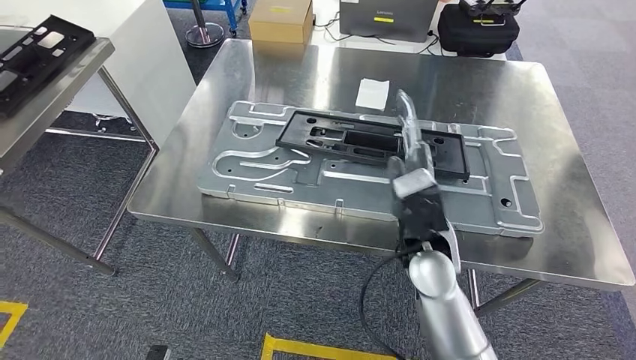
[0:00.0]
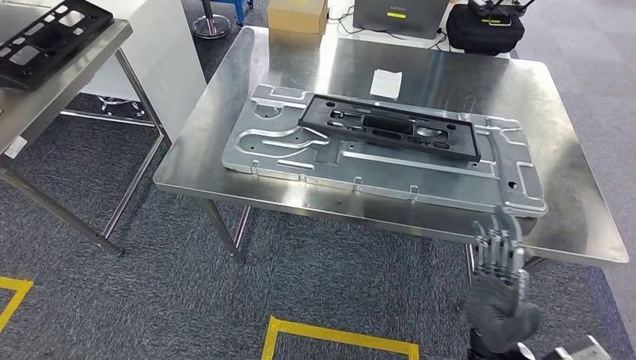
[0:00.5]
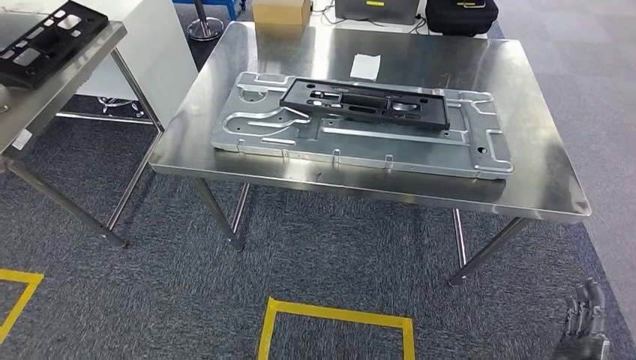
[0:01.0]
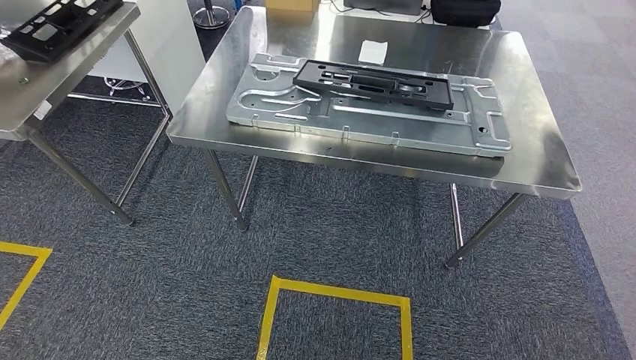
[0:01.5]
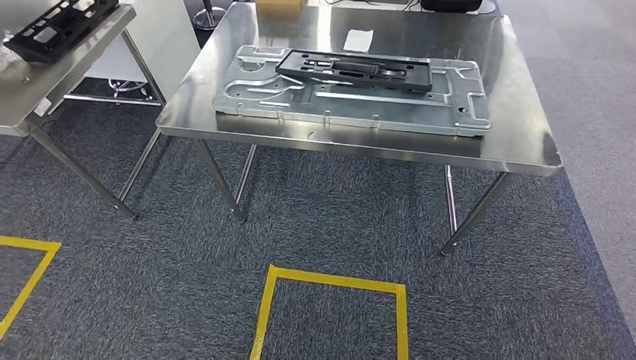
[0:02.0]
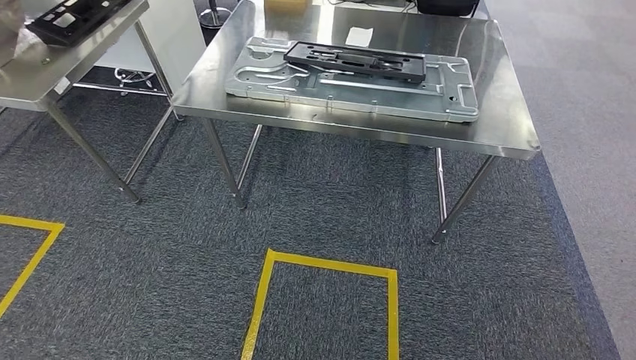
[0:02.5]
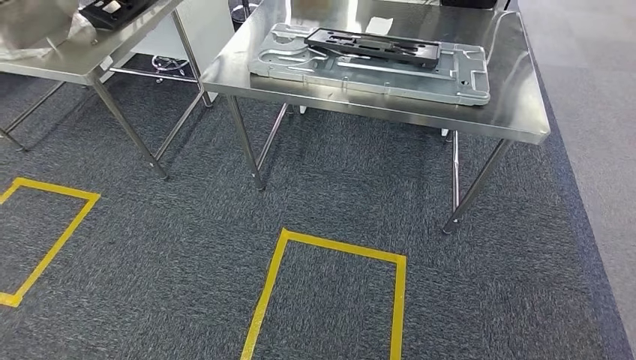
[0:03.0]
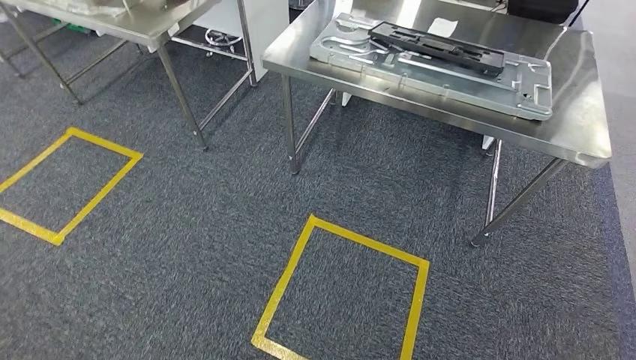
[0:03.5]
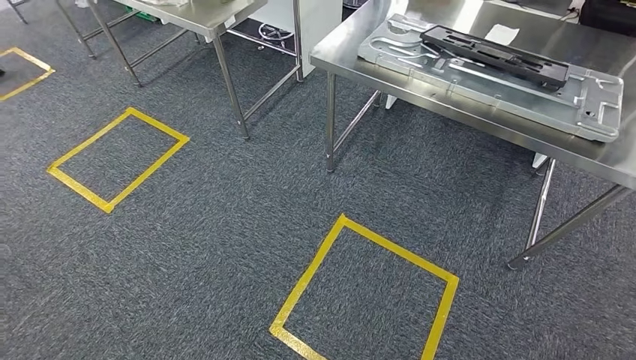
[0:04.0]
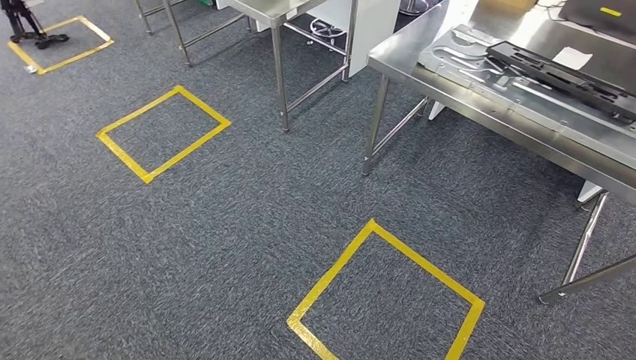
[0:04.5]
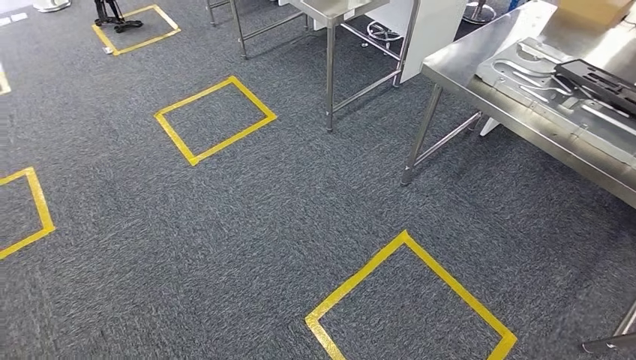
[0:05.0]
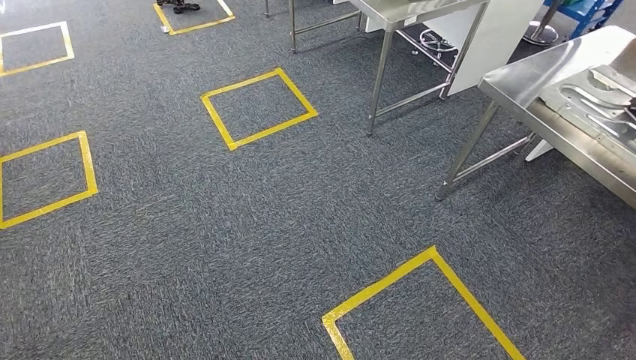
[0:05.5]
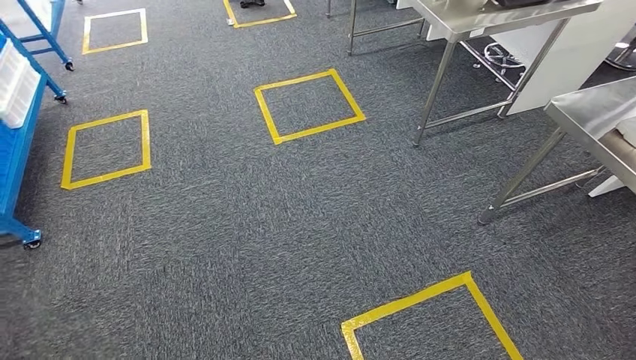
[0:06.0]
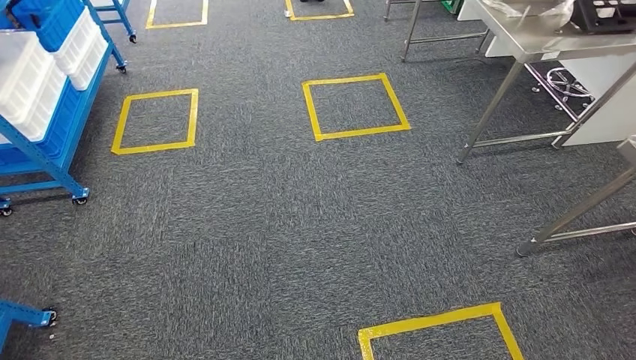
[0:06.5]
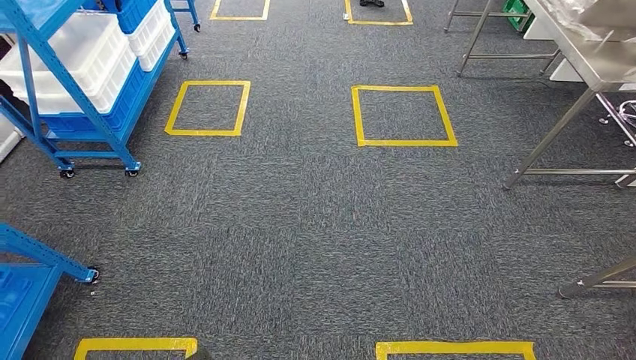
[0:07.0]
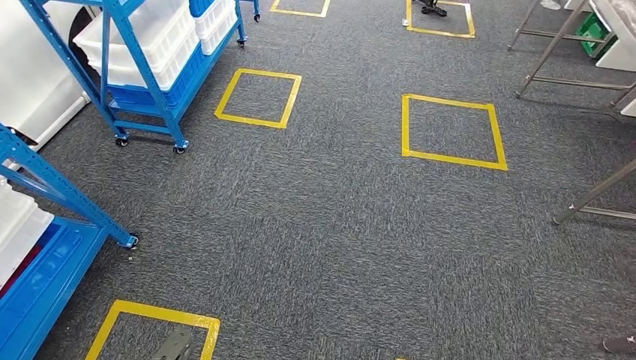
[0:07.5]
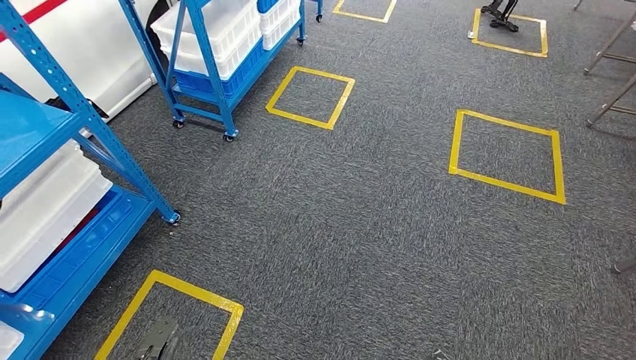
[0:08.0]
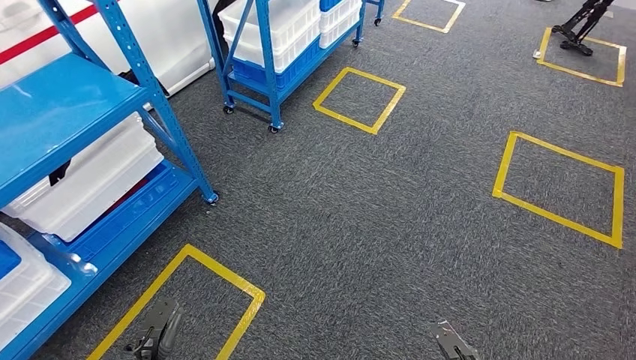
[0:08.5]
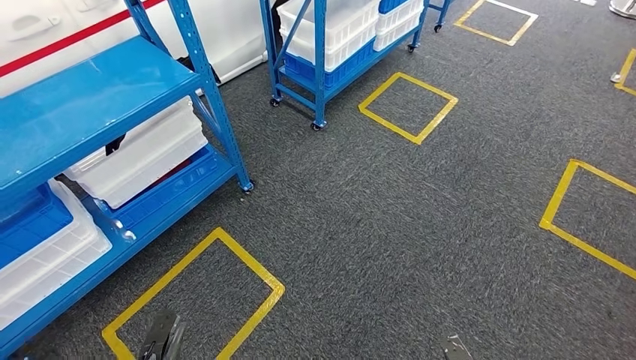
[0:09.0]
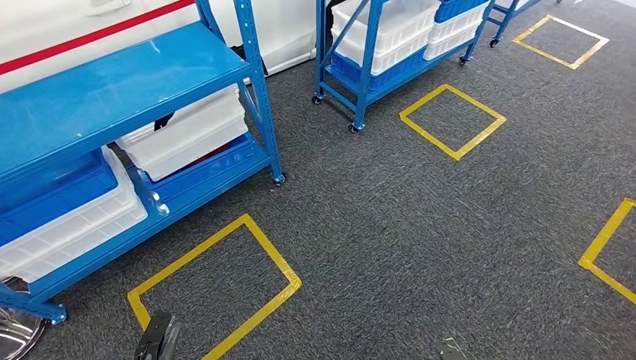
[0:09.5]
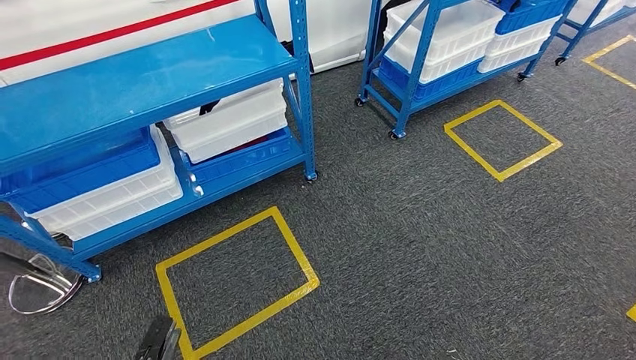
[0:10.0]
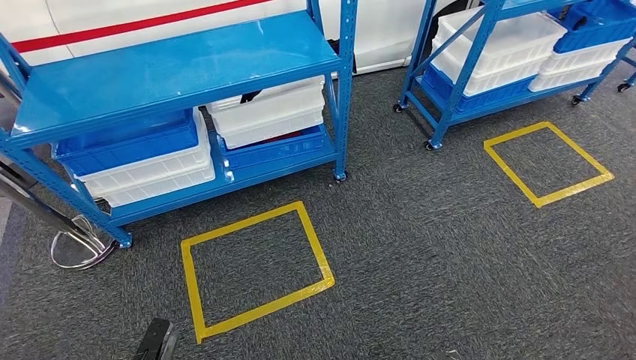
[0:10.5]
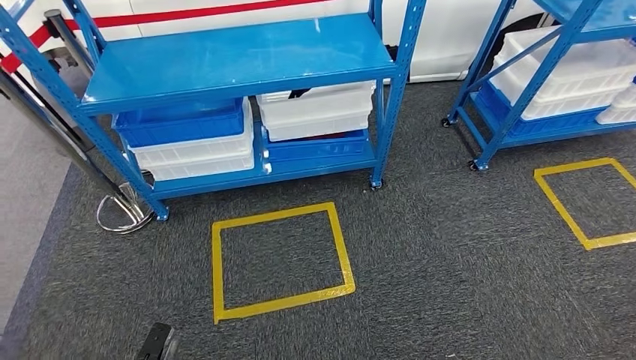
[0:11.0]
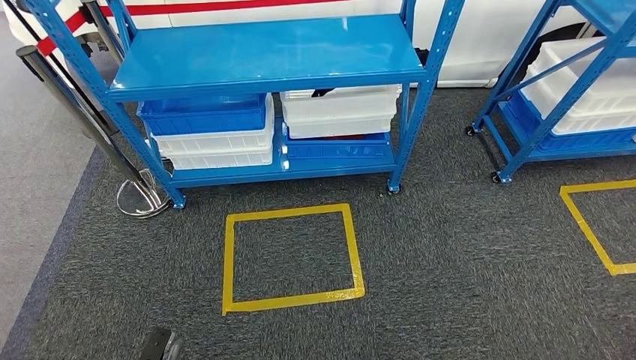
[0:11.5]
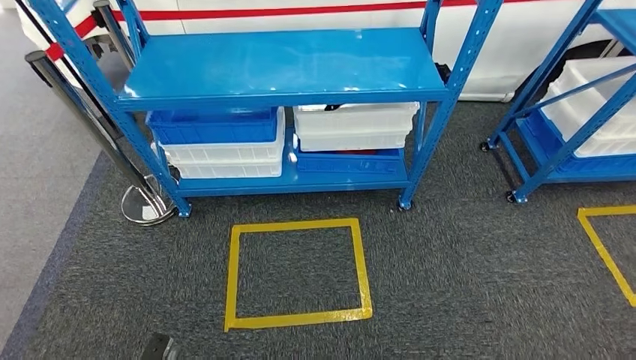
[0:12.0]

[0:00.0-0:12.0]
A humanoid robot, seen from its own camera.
Step, 0:00.0 to 0:02.5: Insert the large parts into the corresponding slots on the workbench.

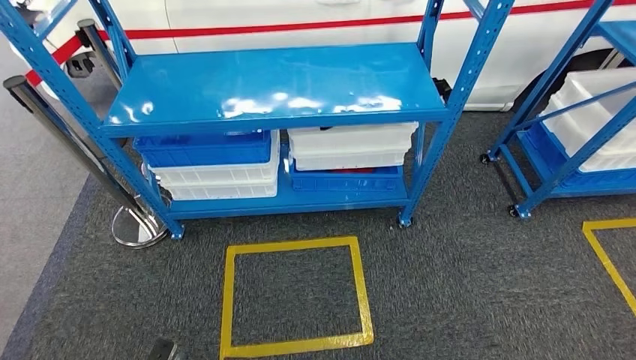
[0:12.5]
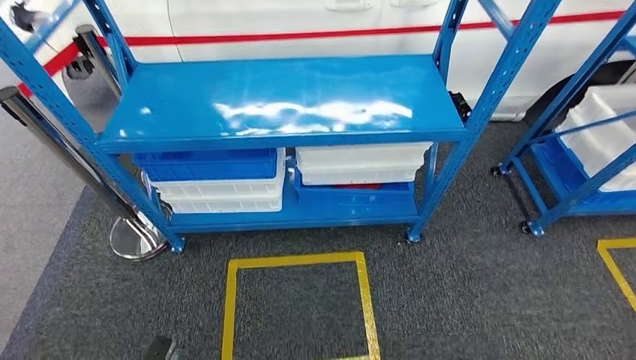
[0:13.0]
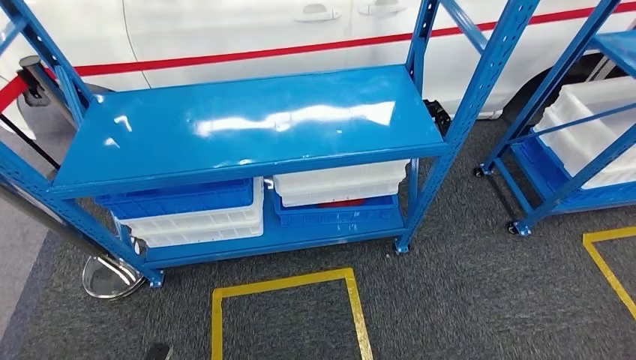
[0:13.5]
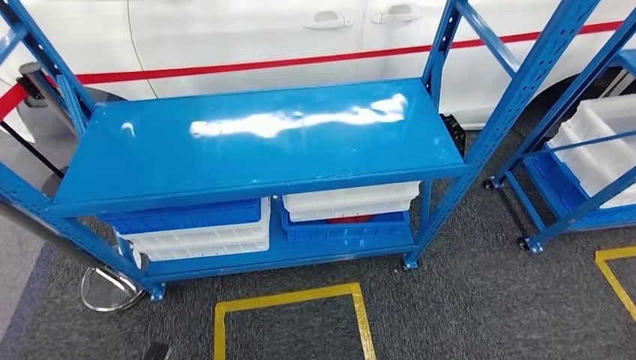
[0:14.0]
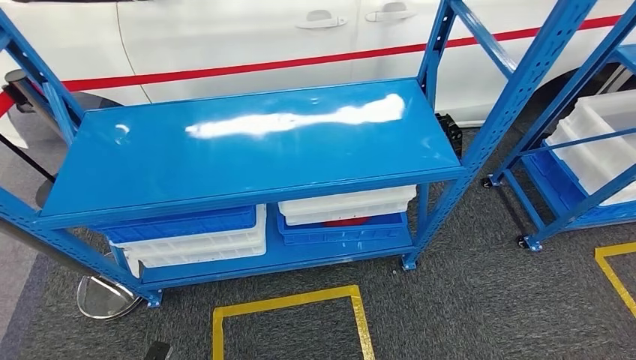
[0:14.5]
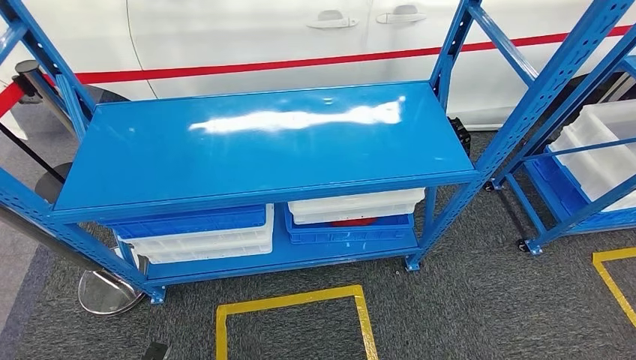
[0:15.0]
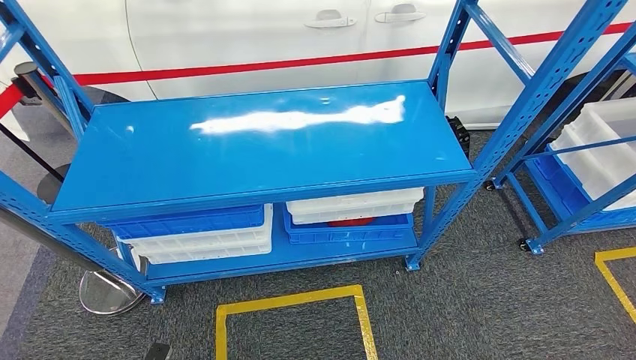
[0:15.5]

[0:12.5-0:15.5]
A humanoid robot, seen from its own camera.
Step, 0:12.5 to 0:15.5: Return to the initial position at the shelf.
